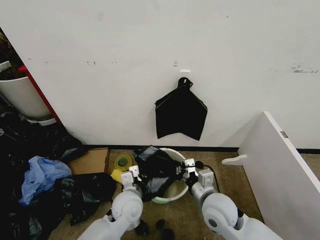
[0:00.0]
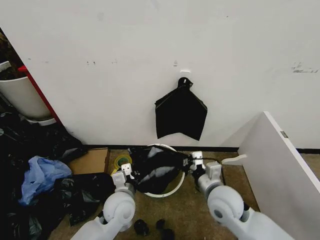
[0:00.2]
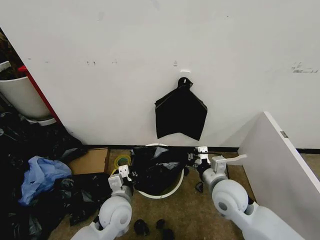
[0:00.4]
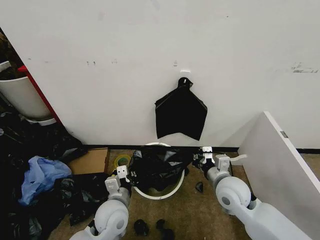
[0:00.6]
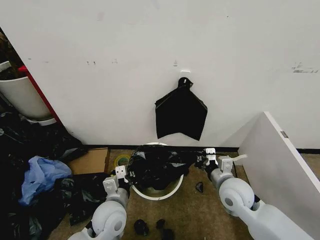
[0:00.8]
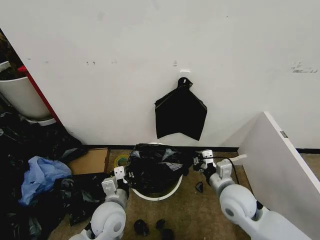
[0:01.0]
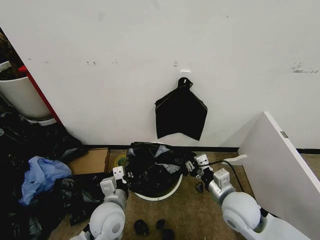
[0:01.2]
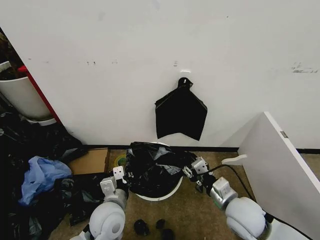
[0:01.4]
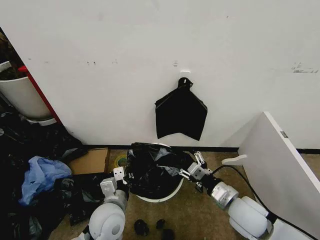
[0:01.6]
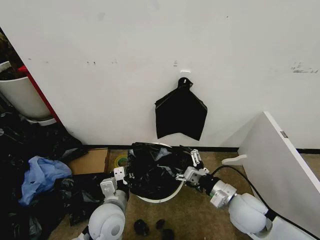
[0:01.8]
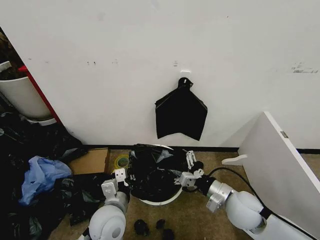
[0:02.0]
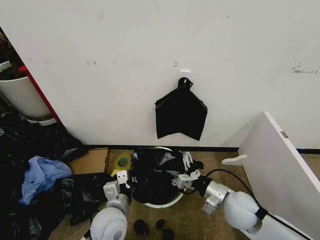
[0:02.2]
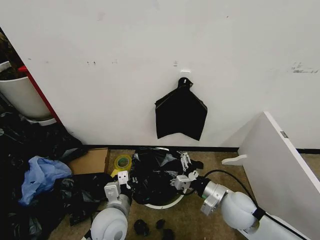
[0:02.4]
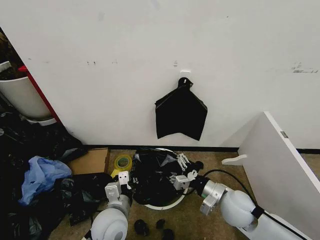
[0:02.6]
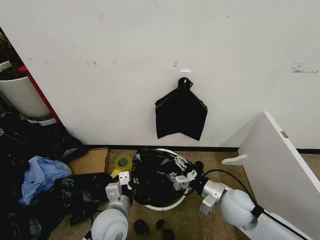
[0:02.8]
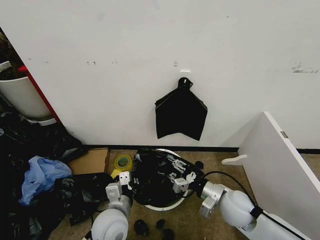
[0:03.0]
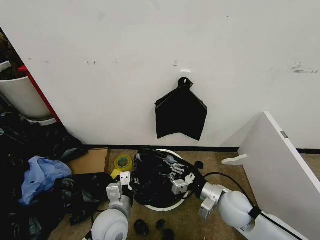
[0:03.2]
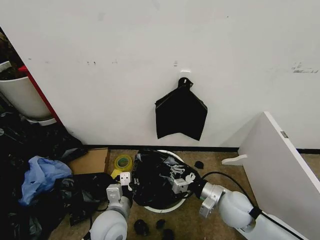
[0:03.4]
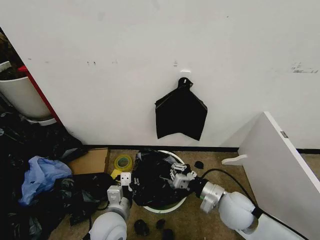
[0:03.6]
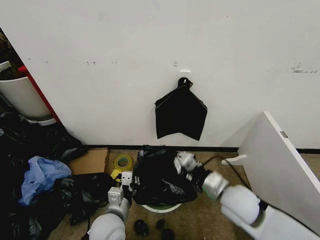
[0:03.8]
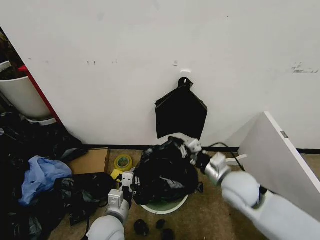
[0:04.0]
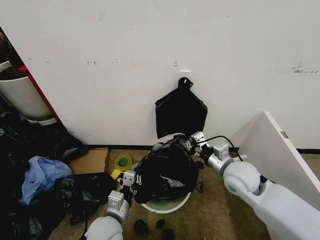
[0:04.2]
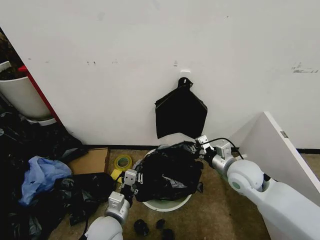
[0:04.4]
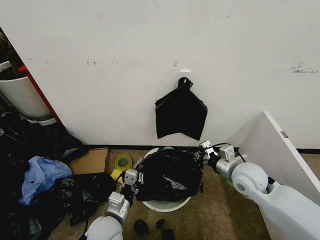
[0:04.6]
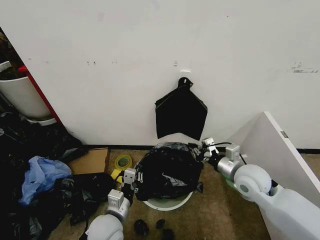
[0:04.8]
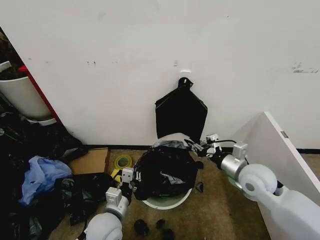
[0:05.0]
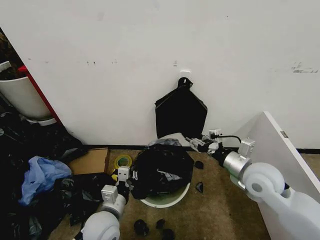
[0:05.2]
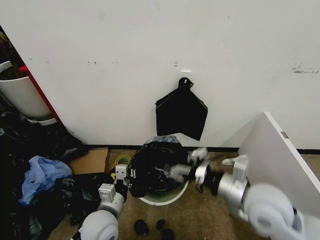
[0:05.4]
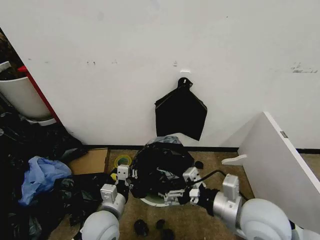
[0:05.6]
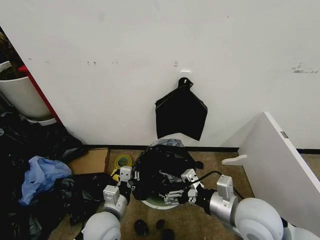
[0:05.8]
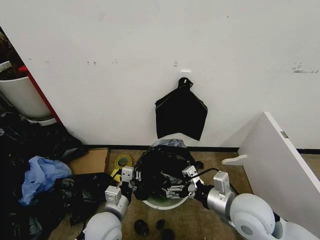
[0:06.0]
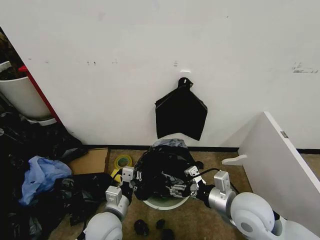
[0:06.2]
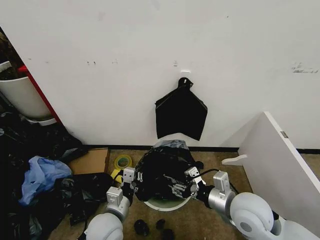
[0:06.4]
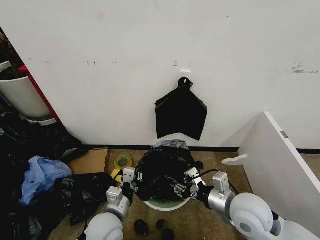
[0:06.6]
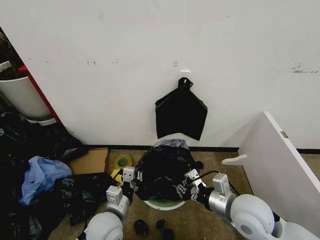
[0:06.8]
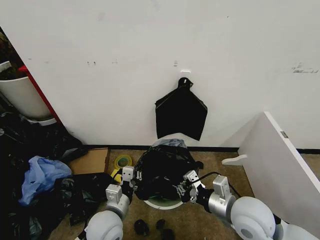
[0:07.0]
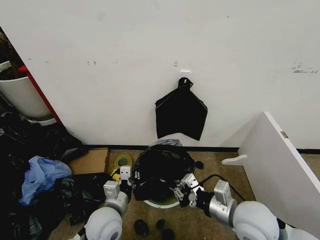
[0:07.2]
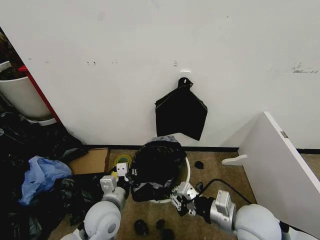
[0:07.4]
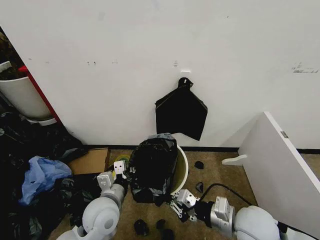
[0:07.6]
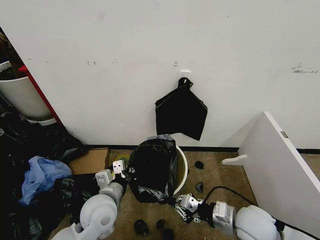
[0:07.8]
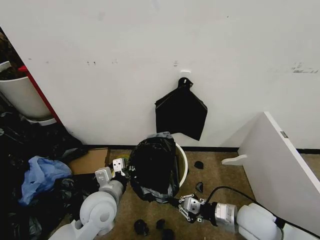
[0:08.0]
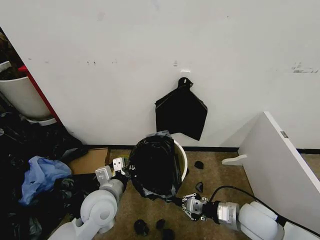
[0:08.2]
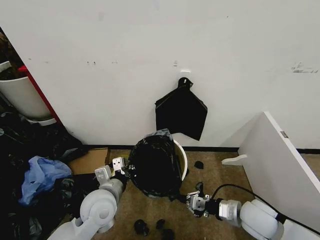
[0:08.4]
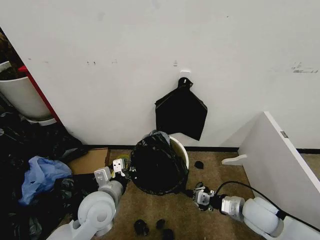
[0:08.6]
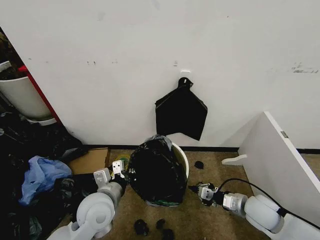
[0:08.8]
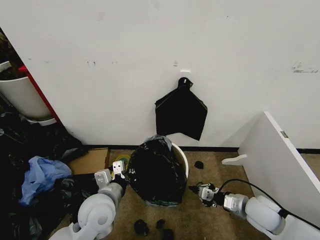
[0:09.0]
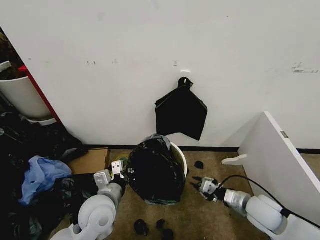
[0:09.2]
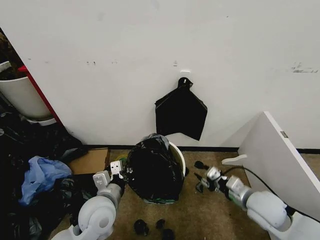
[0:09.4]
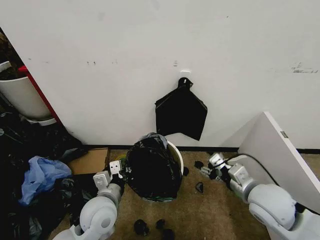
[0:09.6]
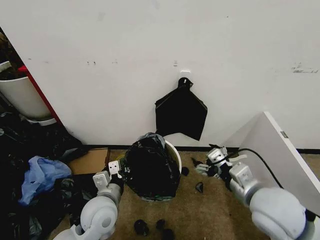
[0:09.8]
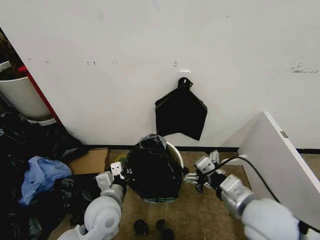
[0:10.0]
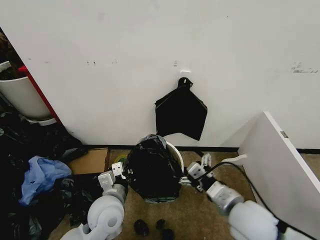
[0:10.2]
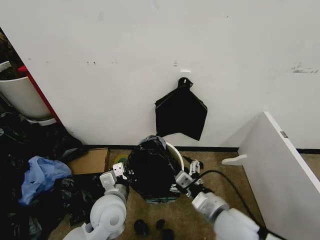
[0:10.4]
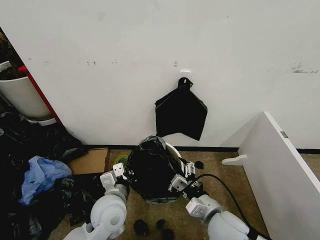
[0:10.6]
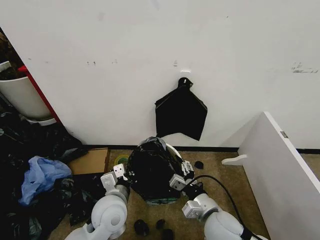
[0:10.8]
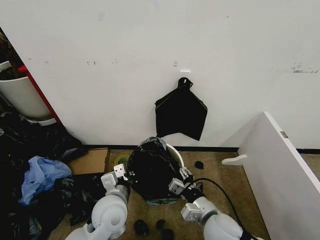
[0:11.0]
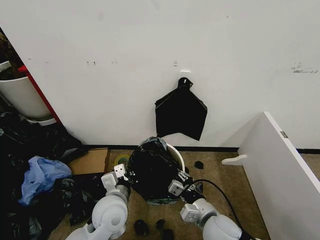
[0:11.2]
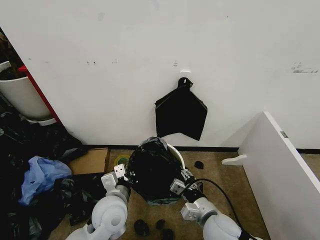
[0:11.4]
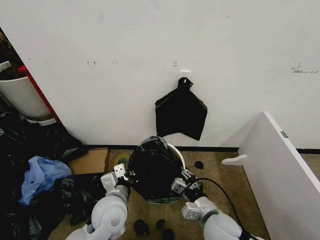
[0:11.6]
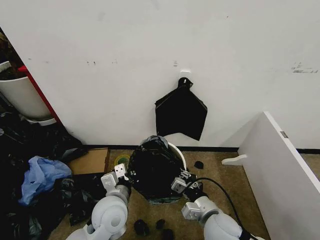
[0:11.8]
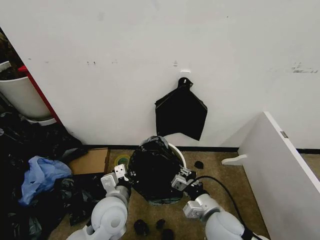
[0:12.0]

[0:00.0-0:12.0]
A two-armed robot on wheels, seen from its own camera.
Task of the whole recording: Place the garbage bag over the trash bin.
0:00.0 to 0:01.6: The left gripper ends up about 5 cm from where it was, while the right gripper heads to the right, covering roughly 5 cm, and opens up.
0:03.0 to 0:04.4: The right gripper is displaced upward and forward by about 10 cm, and closes its fingers.
0:04.4 to 0:06.0: The right gripper travels backward by roughly 10 cm, and opens up.
0:06.0 to 0:07.6: The right gripper closes up, while the left gripper moves approximately 5 cm.
0:07.6 to 0:09.0: The right gripper travels to the right, downward and forward by roughly 15 cm.
0:09.0 to 0:10.4: The right gripper moves to the left, upward and backward, some 20 cm, and opens up.
0:10.4 to 0:12.0: The right gripper changes place by roughly 5 cm, and closes.

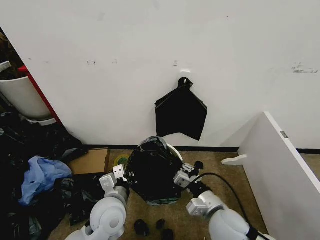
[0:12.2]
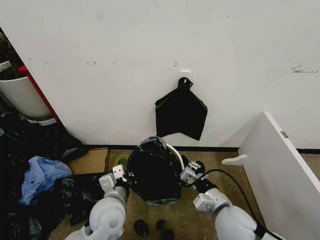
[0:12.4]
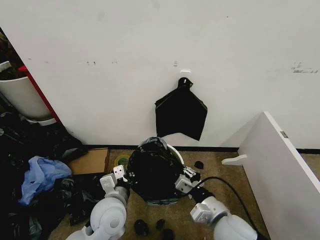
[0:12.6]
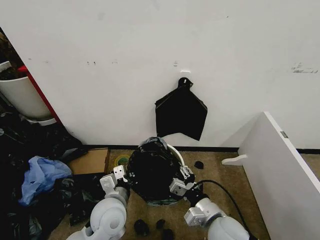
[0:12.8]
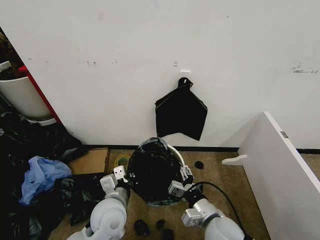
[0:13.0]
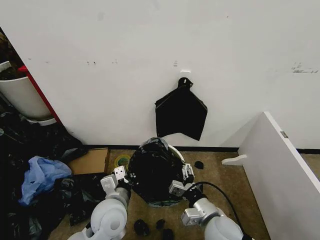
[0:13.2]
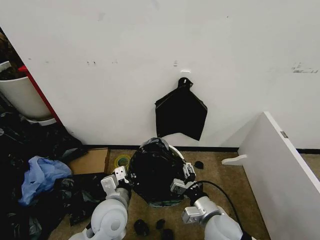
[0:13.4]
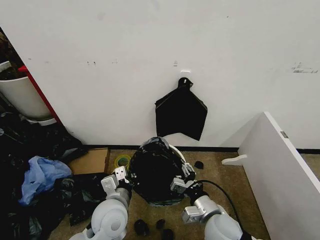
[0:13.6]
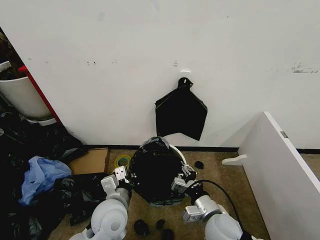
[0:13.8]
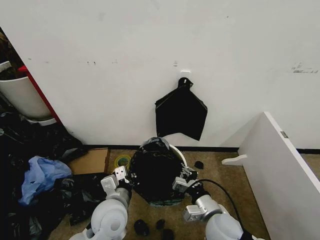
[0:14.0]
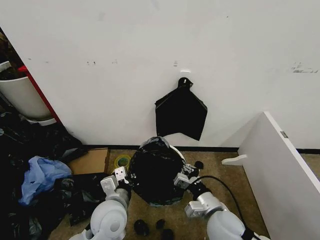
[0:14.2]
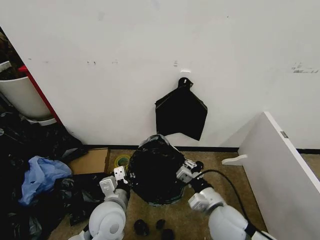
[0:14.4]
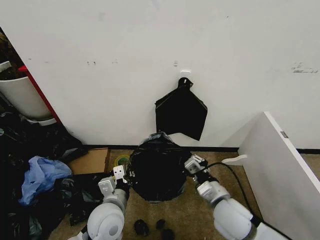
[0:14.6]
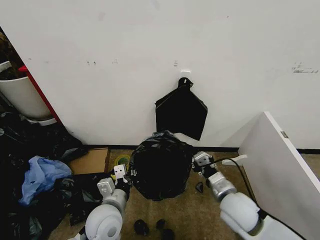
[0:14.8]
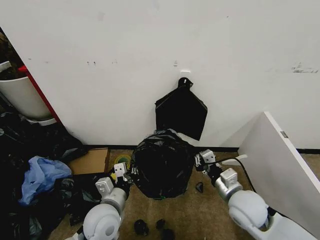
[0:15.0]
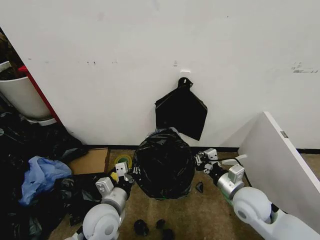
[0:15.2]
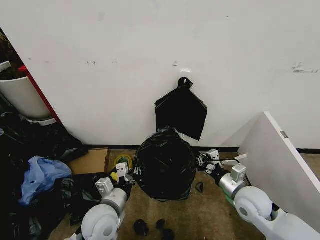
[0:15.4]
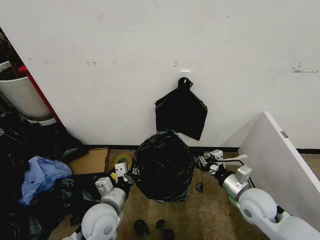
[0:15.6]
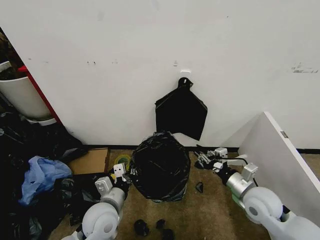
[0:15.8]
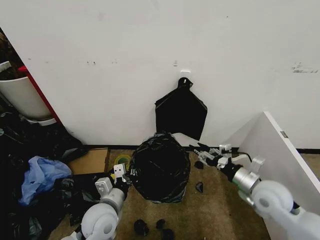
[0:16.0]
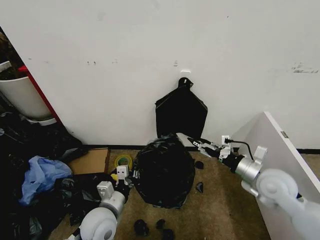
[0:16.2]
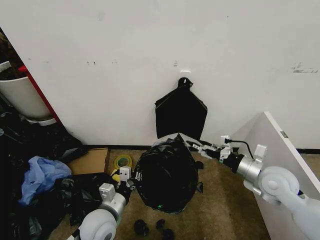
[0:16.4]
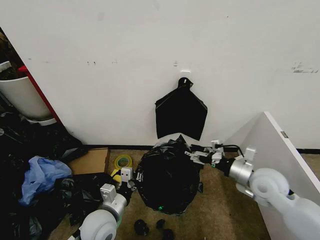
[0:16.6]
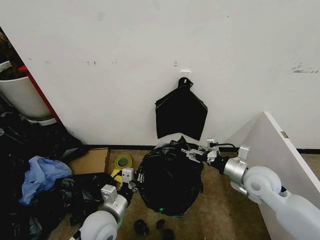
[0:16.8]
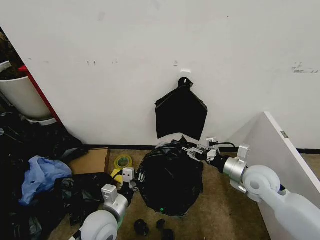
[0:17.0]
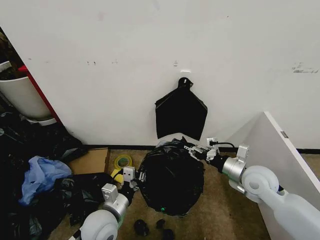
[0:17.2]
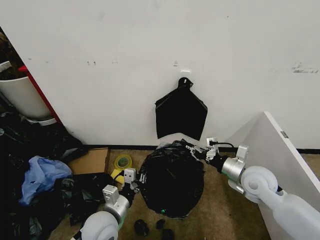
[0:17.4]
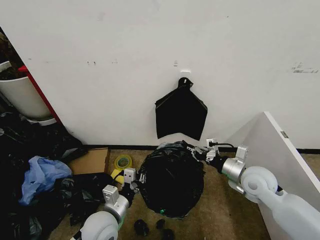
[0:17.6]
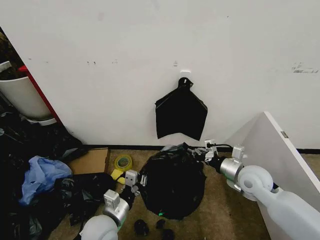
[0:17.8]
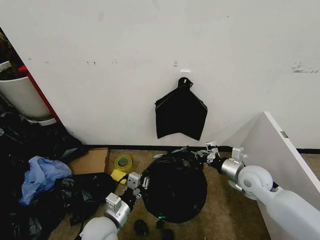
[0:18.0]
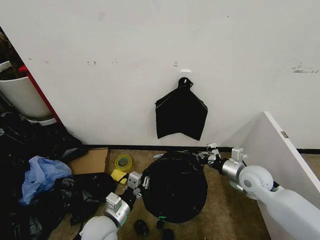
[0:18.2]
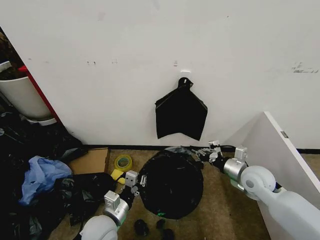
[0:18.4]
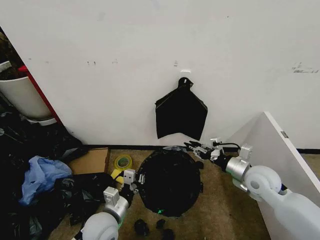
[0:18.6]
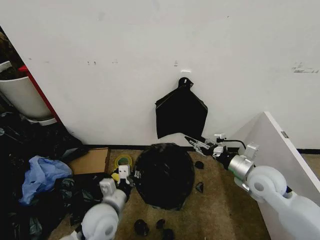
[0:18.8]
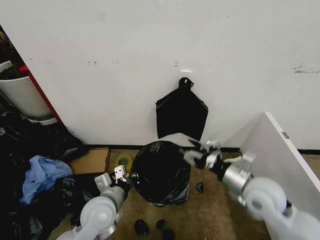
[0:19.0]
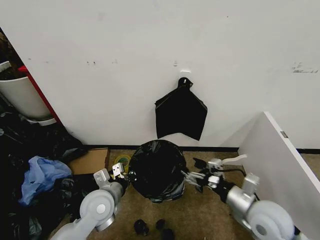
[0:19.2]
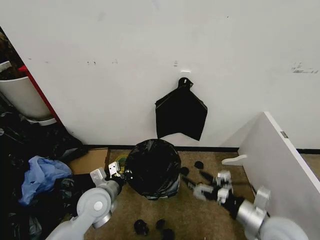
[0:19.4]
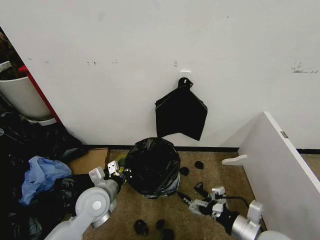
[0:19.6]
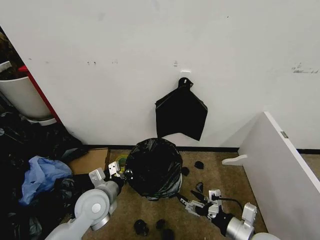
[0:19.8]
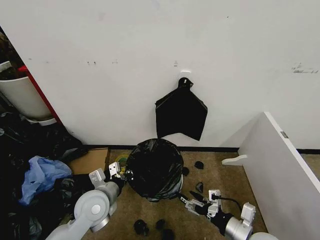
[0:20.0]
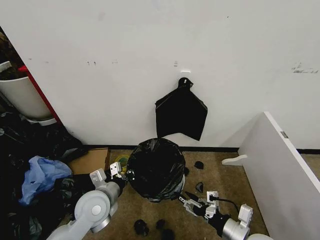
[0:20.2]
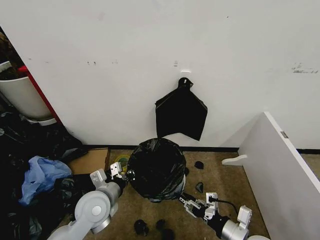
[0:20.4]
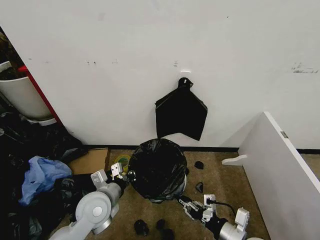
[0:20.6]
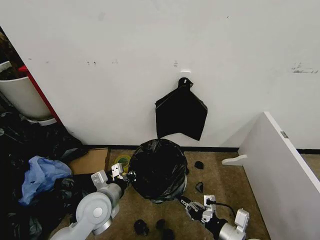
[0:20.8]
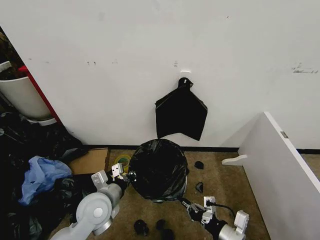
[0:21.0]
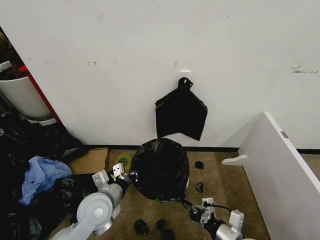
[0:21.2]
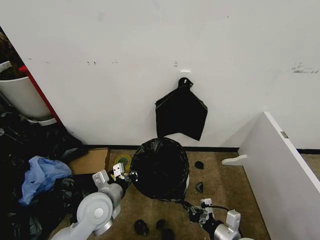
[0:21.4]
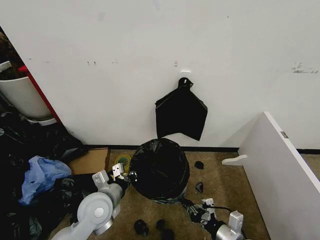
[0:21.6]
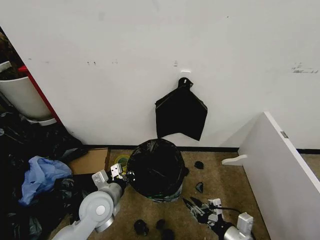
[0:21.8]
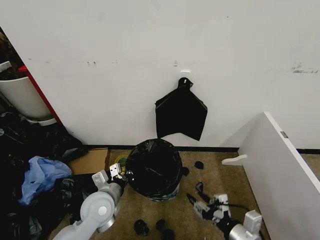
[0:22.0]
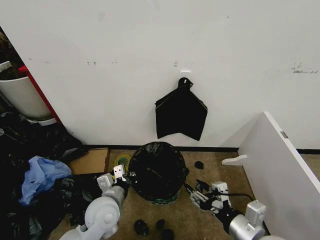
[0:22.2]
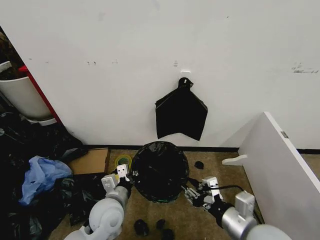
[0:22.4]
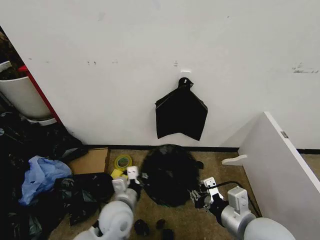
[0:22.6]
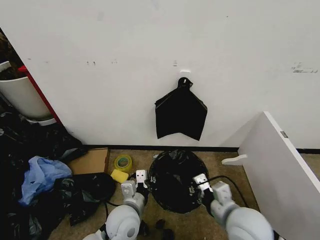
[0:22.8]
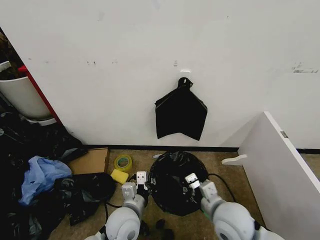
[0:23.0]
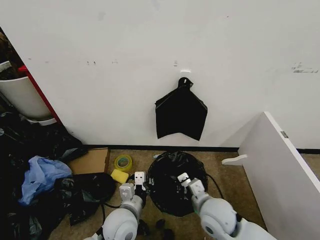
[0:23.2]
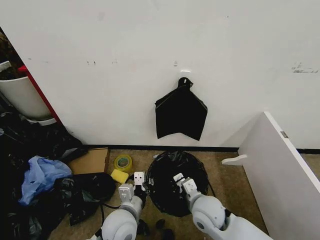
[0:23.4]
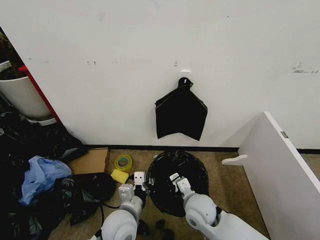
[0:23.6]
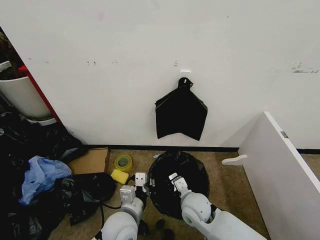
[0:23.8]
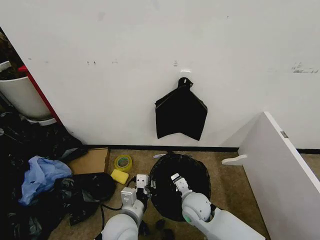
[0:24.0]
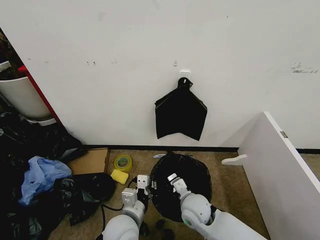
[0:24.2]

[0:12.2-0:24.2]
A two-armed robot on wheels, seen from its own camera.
Task of the whole recording: Place the garbage bag over the trash bin.
0:12.2 to 0:13.8: The right gripper opens and closes again.
0:13.8 to 0:15.2: The right gripper is displaced to the right and forward by about 10 cm.
0:15.2 to 0:16.6: The right gripper moves roughly 10 cm, and opens.
0:16.6 to 0:18.2: The right gripper moves some 5 cm, and closes its fingers.
0:18.2 to 0:19.8: The right gripper shifts some 20 cm backward, and opens its fingers, while the left gripper goes some 10 cm forward and upward.
0:19.8 to 0:21.2: The right gripper changes place by roughly 5 cm, and closes its fingers.
0:21.2 to 0:22.6: The right gripper heads upward, covering approximately 15 cm, and opens, then closes once more. Meanwhile the left gripper heads to the right, covering about 5 cm.
0:22.6 to 0:24.2: The right gripper goes about 20 cm downward, forward and to the left.
